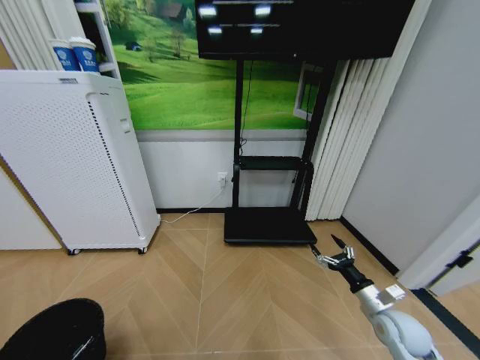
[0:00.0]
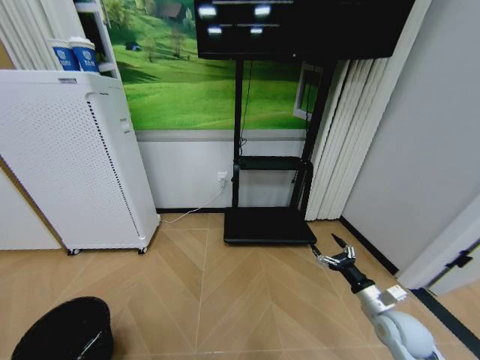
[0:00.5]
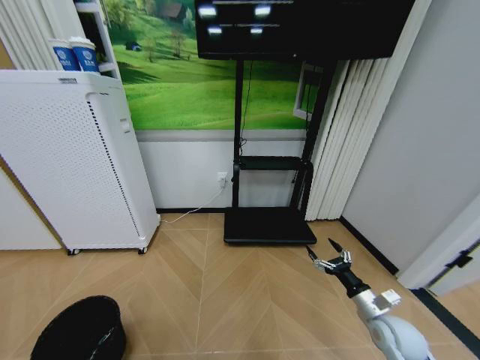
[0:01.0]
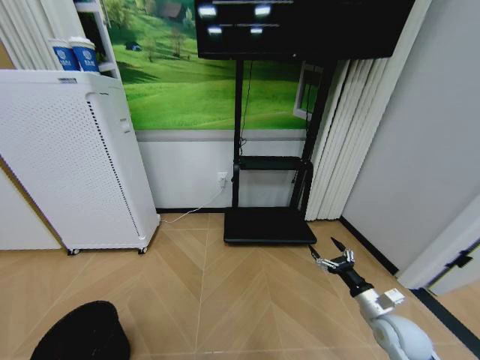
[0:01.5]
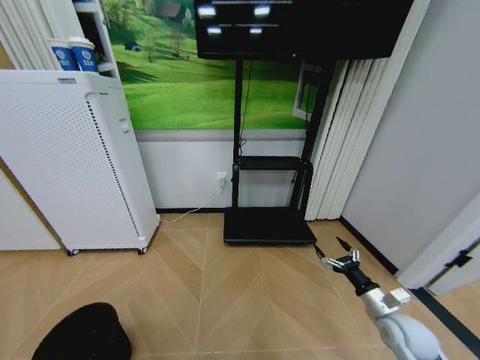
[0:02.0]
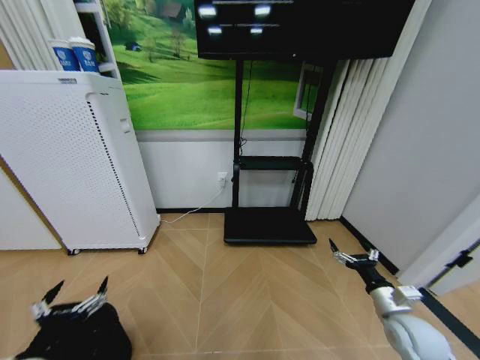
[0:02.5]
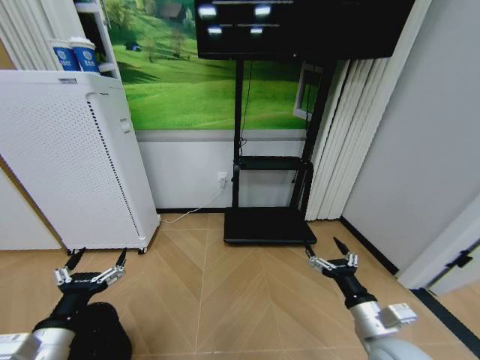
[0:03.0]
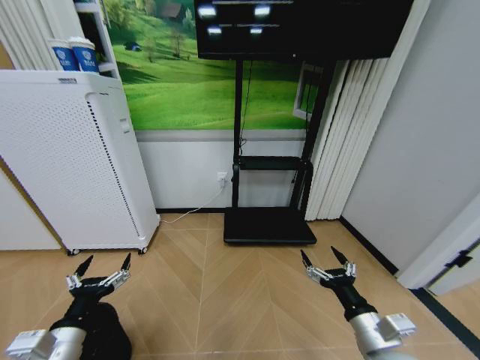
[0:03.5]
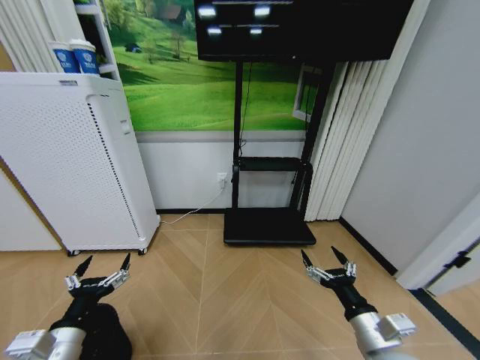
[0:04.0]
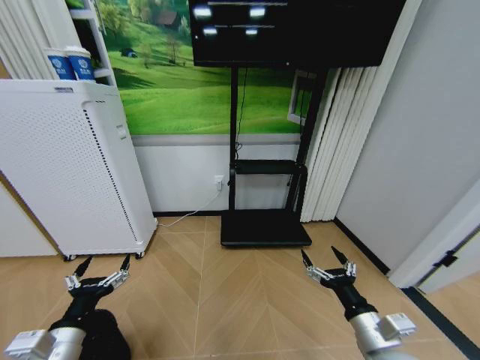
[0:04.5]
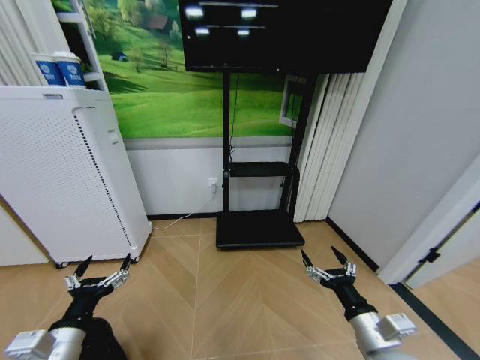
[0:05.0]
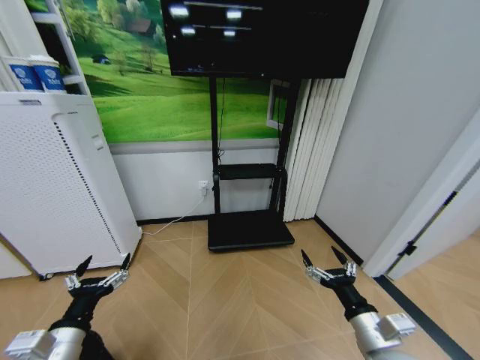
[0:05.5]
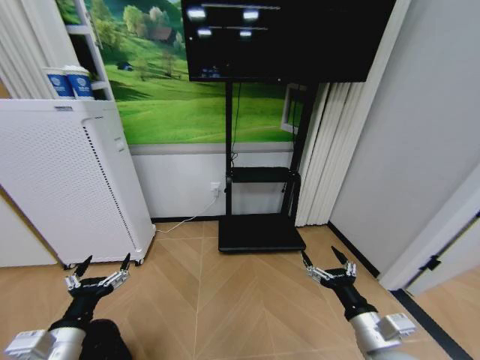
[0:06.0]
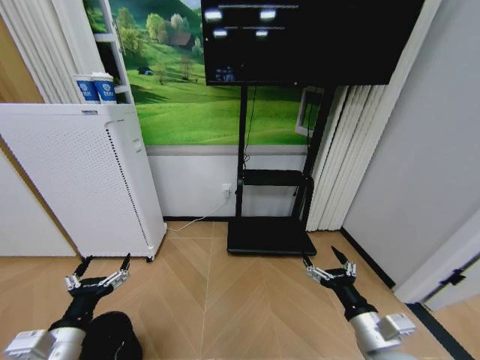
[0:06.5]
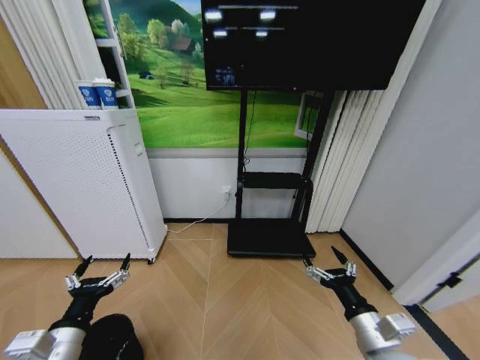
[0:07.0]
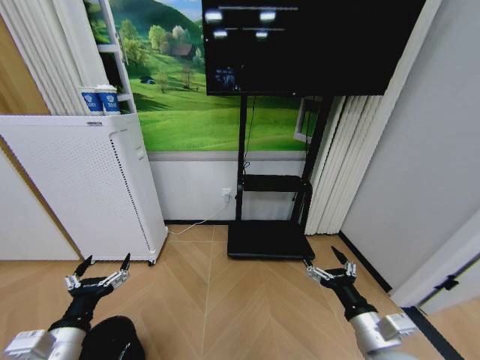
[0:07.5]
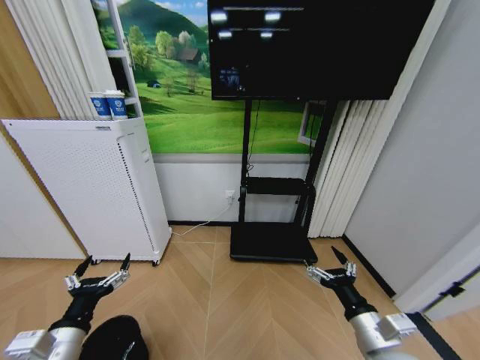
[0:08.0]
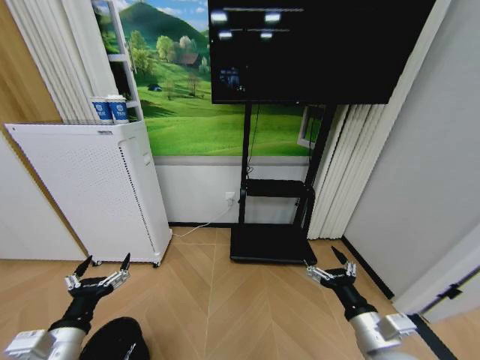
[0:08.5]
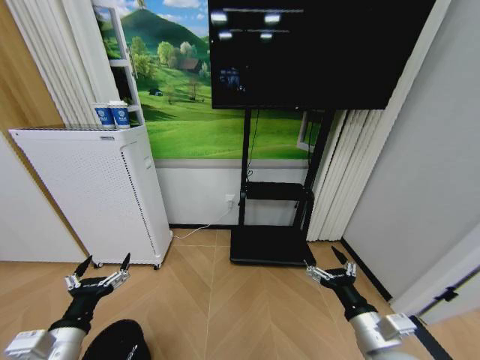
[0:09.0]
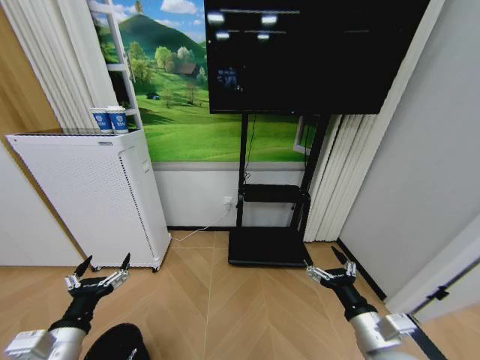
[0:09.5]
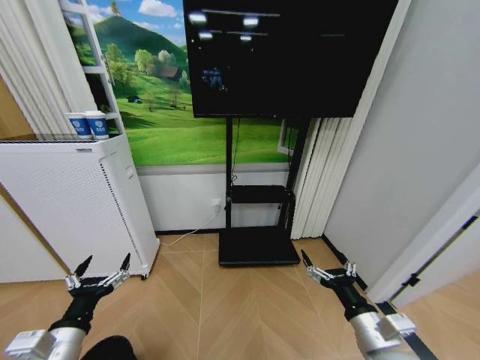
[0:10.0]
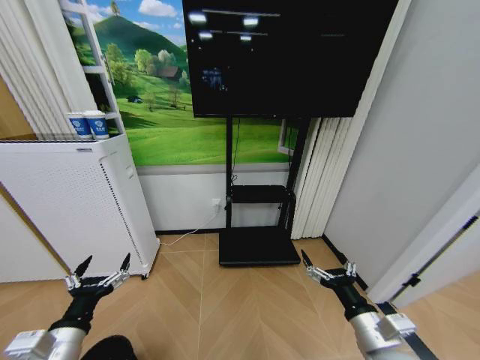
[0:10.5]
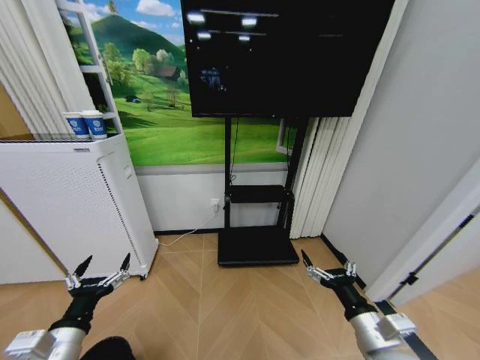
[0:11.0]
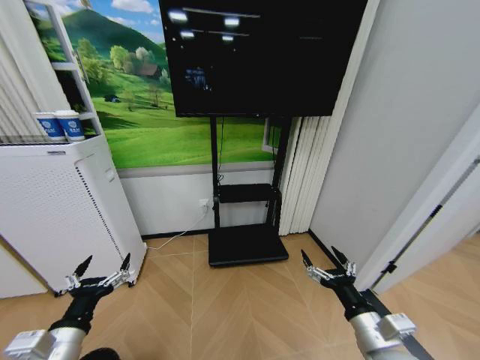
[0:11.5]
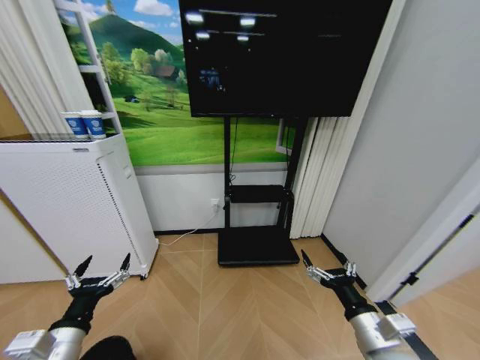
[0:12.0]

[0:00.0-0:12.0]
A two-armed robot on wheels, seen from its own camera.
Task of the whole recording: Pick up the trash bin and place the garbage on the floor into it.
0:00.0 to 0:02.0: The left gripper moves approximately 10 cm downward and comes back, and opens its fingers.
0:02.0 to 0:04.0: The left gripper heads forward, to the right and upward, covering roughly 15 cm; the right gripper moves to the left, backward and upward, approximately 20 cm.
0:10.0 to 0:12.0: Both grippers stay about where they are.

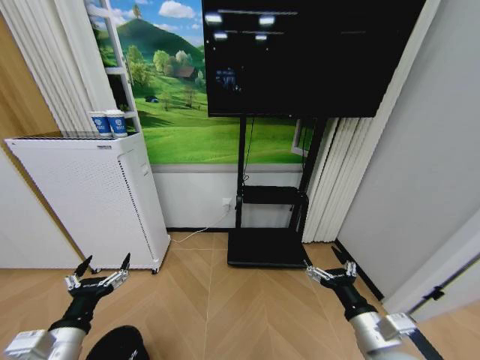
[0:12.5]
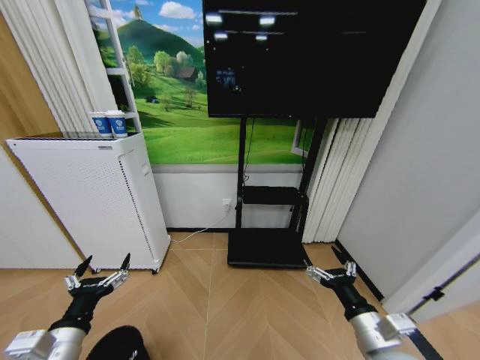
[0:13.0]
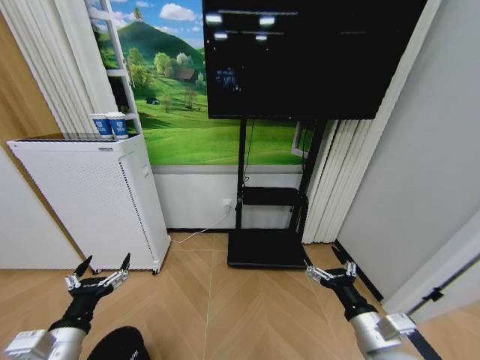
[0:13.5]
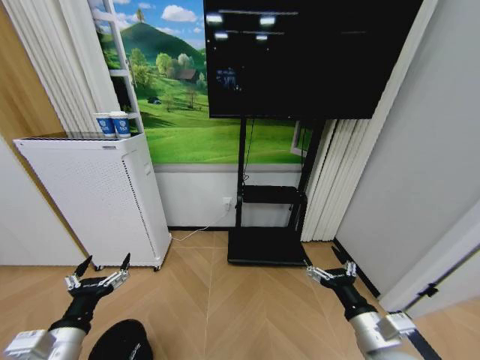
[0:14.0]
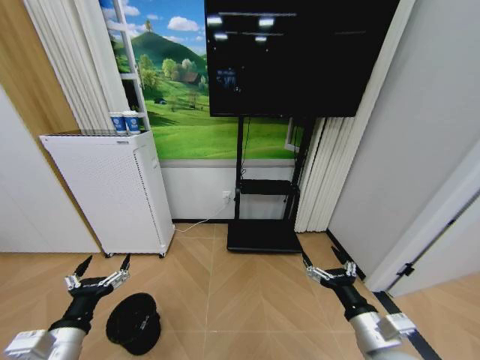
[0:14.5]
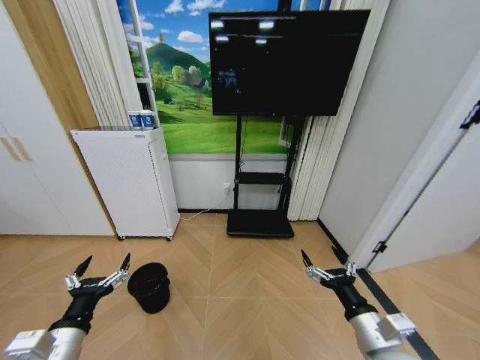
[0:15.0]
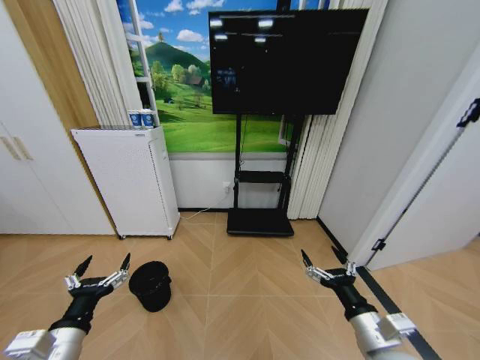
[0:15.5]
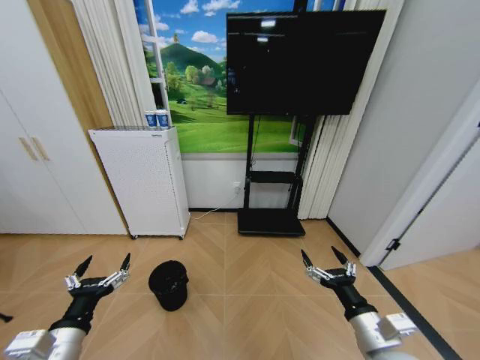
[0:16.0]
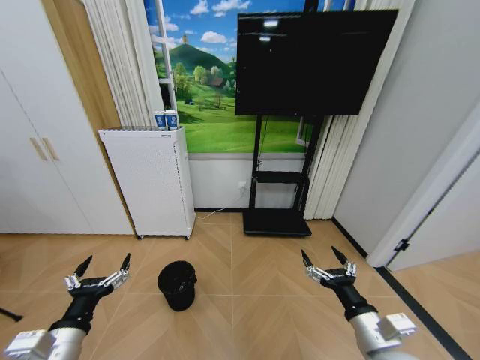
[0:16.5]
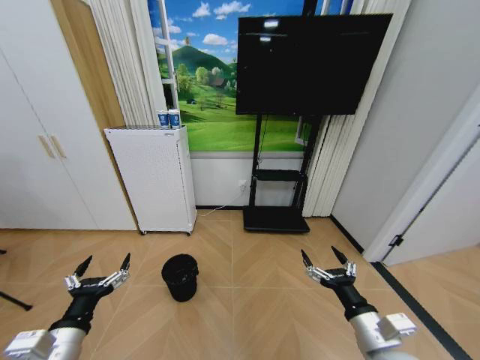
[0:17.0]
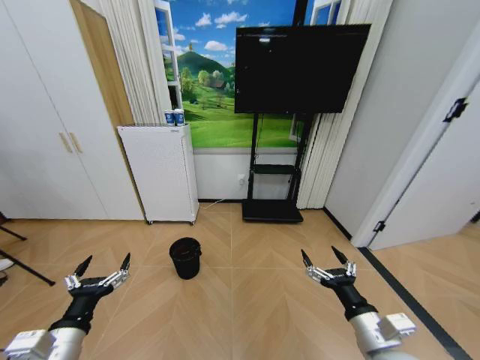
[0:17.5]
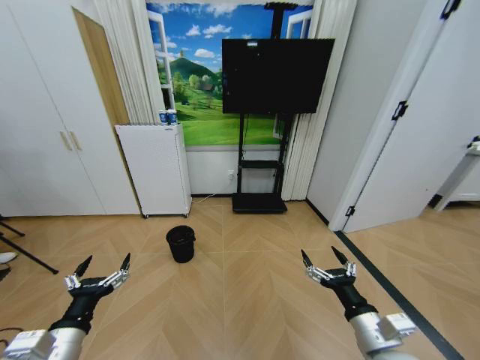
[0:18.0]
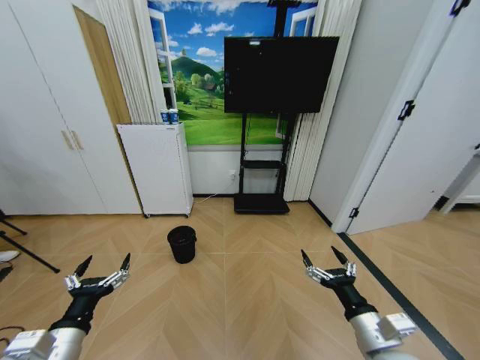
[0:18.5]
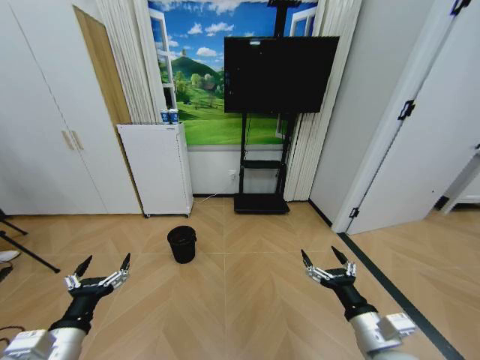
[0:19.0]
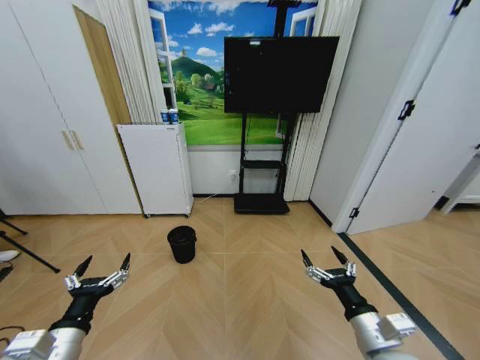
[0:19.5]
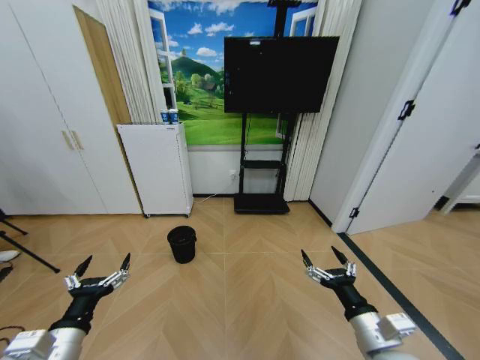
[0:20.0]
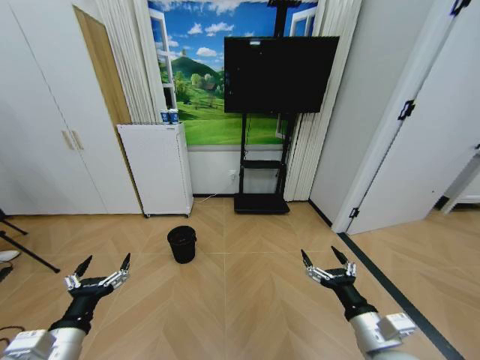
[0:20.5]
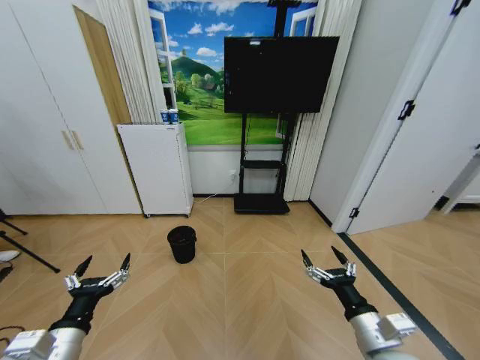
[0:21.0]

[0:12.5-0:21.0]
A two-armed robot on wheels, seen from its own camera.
Task of the whole recording: Pick up the trash bin and place the garbage on the floor into it.
0:19.0 to 0:21.0: Both grippers stay put.
